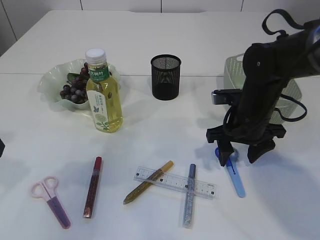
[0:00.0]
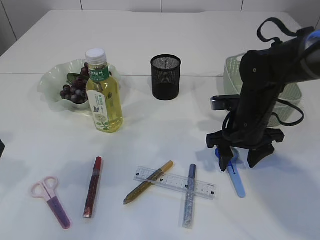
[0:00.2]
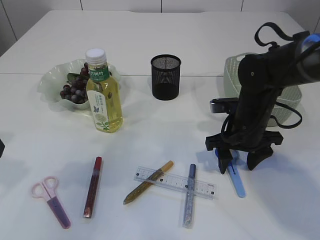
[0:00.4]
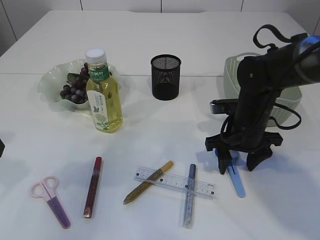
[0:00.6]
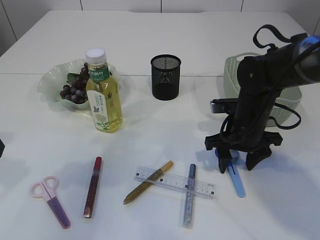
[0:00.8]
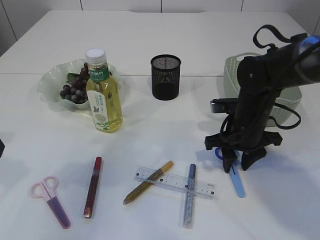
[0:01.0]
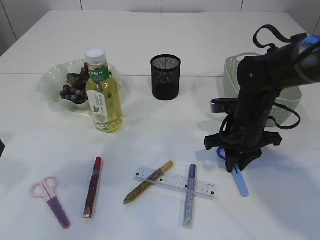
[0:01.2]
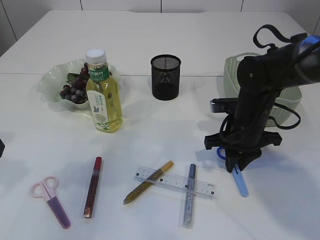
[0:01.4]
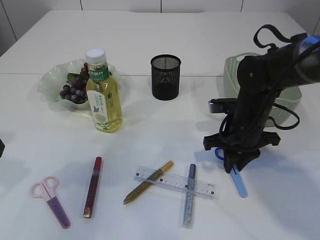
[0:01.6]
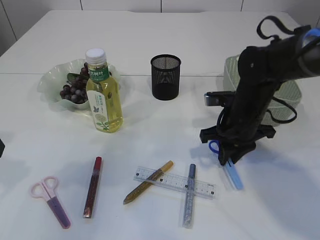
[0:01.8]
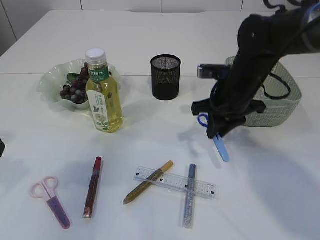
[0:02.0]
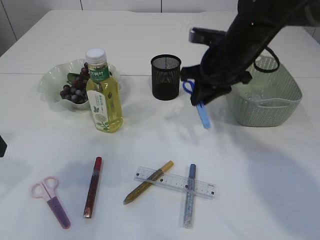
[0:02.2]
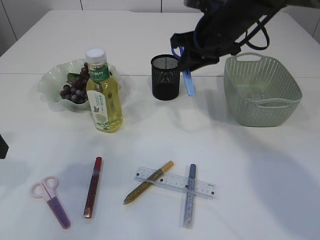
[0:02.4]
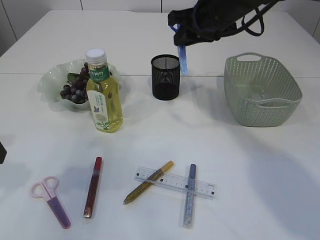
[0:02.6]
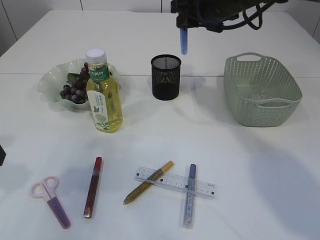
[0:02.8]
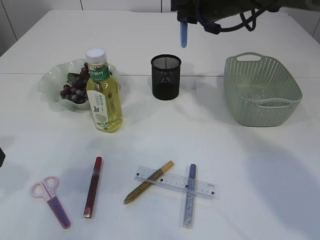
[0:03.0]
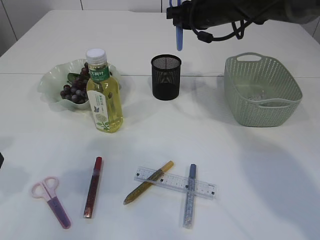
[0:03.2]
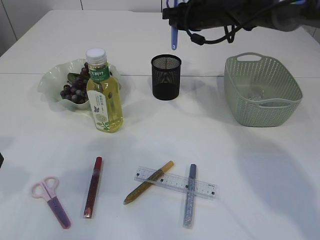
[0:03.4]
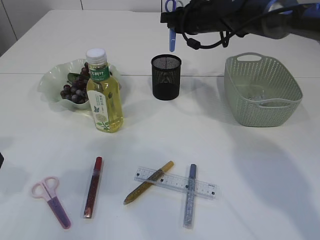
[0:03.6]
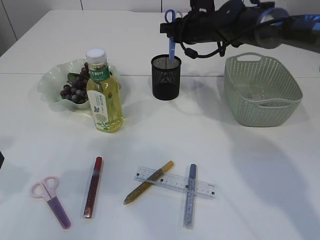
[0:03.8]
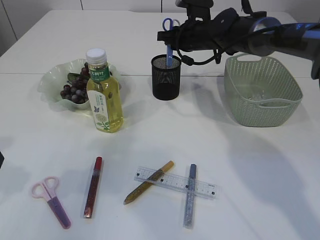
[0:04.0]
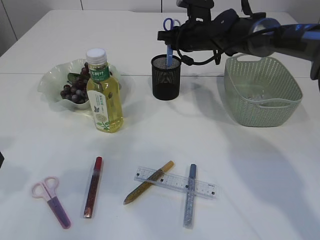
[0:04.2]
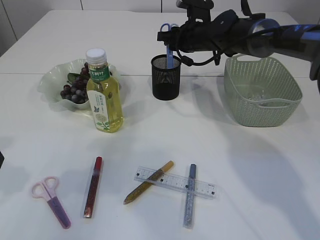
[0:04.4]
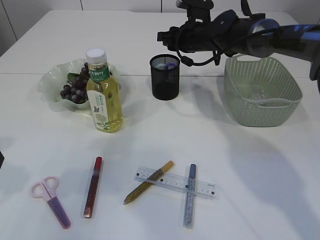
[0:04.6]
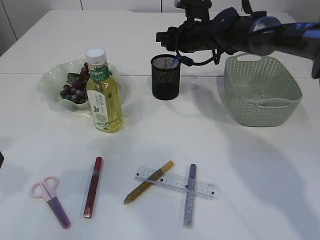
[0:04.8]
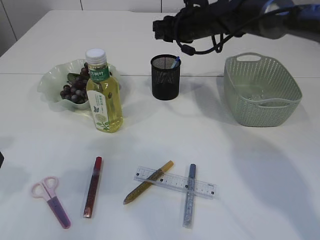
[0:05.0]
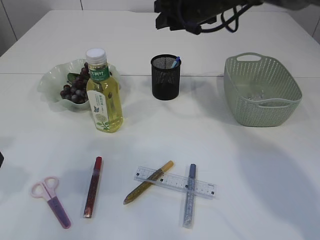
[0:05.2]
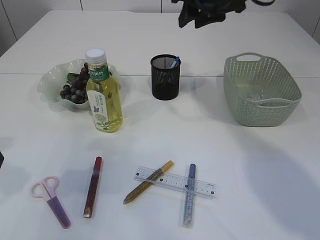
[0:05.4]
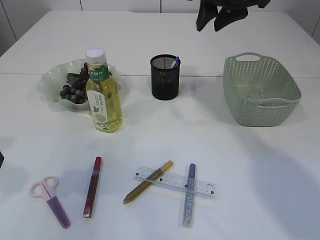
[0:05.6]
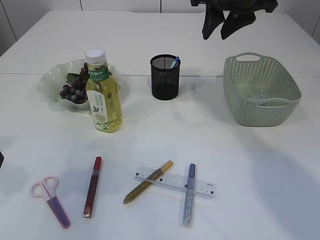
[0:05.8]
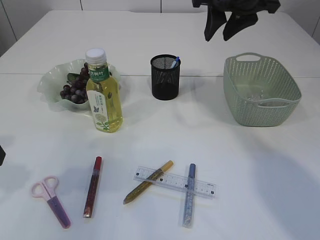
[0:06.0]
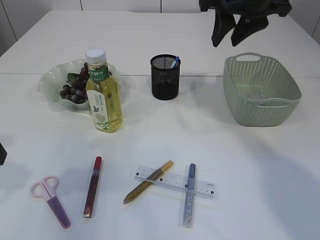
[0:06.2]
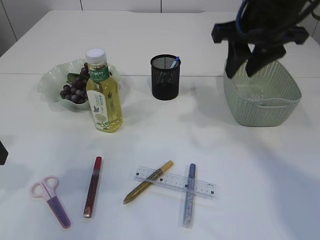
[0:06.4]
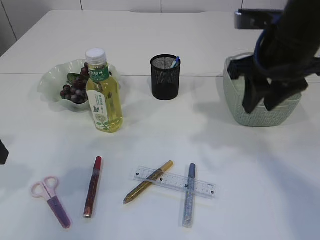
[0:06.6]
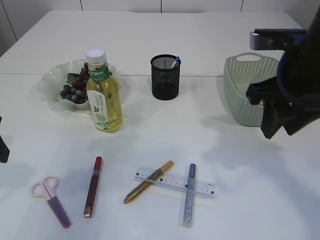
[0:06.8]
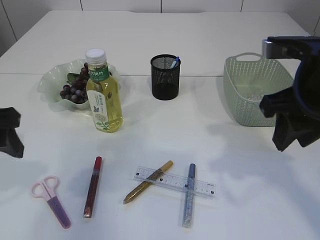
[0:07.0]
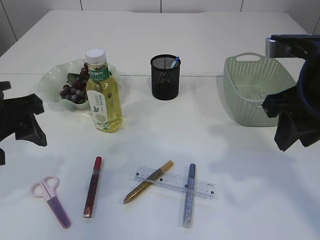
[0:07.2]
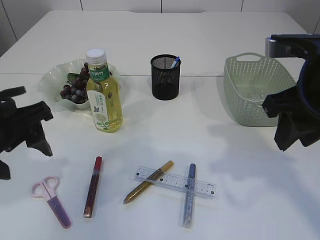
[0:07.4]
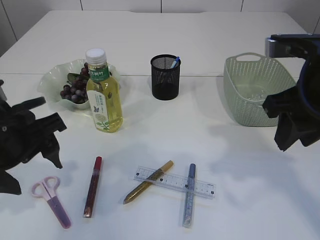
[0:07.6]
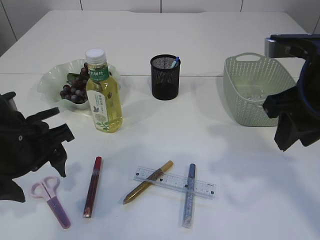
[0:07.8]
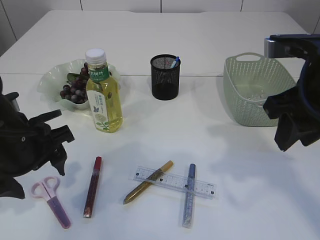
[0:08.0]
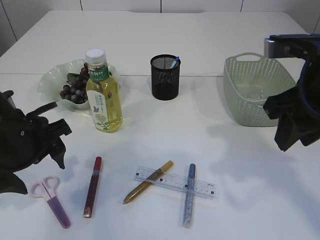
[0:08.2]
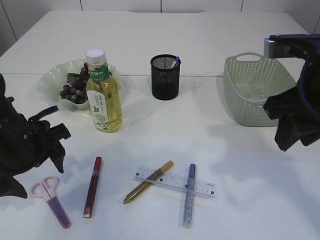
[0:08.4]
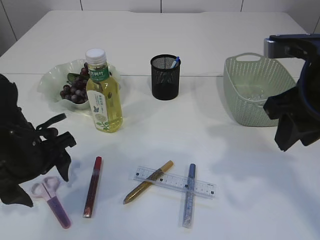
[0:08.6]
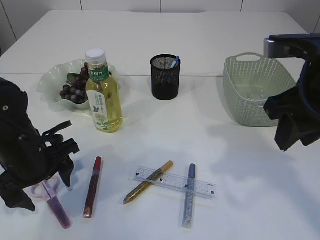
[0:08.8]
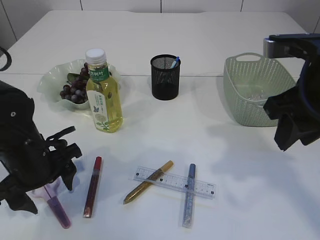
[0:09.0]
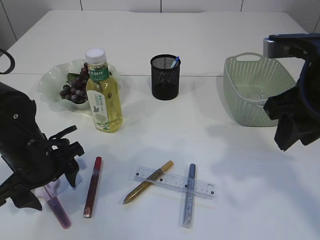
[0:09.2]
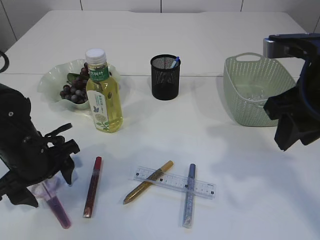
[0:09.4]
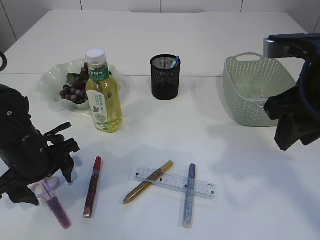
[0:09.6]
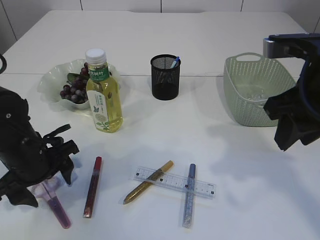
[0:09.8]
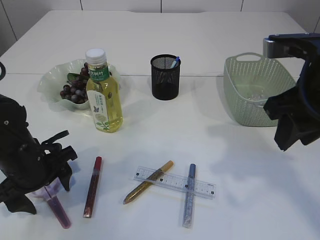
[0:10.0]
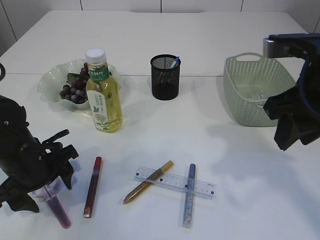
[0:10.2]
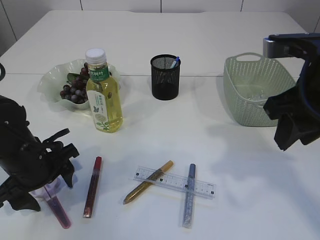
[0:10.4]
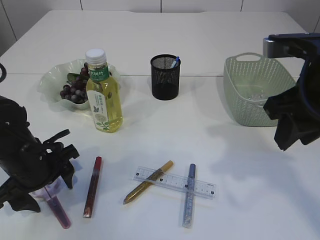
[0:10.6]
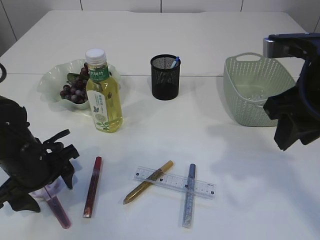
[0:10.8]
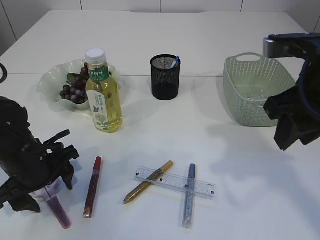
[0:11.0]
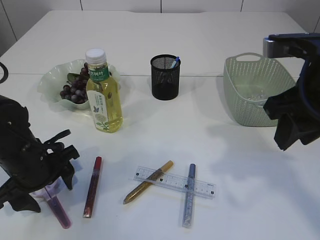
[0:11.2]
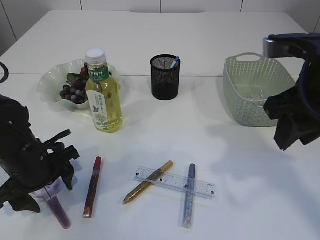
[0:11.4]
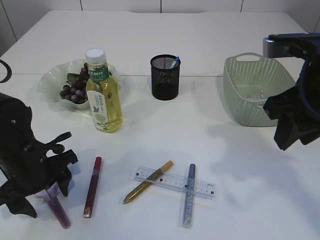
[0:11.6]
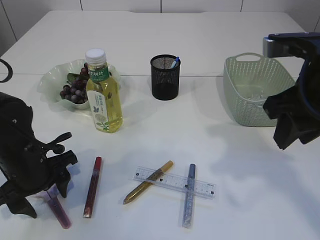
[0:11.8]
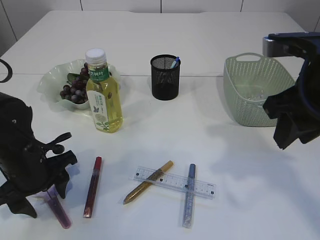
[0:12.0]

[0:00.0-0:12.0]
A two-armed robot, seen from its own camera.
Step, 0:00.0 to 0:02.0: pick up the blue scissors.
Step, 0:02.2 to 0:05.4: Place the blue scissors into the pen holder.
0:00.0 to 0:01.6: The right gripper closes its fingers.
0:01.6 to 0:03.0: The right gripper shifts roughly 20 cm upward and forward.
0:03.0 to 0:04.4: The right gripper shifts about 10 cm downward and forward.
0:04.4 to 0:06.0: The right gripper travels upward and backward by roughly 20 cm.
0:06.0 to 0:07.6: The left gripper goes about 10 cm to the right; the right gripper is displaced backward by some 15 cm.
0:07.6 to 0:09.0: The left gripper shifts about 10 cm downward.
0:09.0 to 0:12.0: The grippers move only a little.

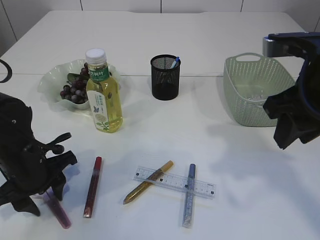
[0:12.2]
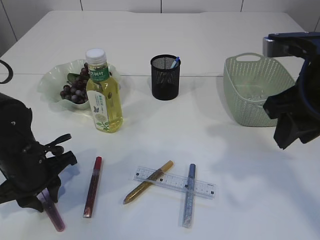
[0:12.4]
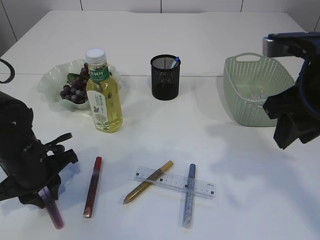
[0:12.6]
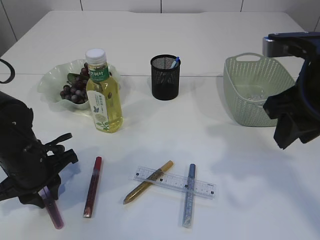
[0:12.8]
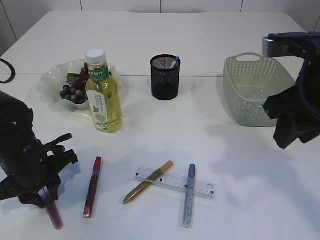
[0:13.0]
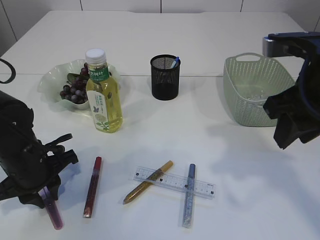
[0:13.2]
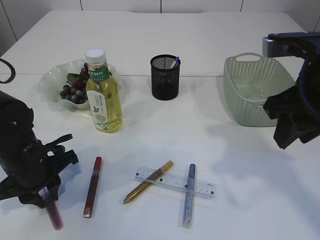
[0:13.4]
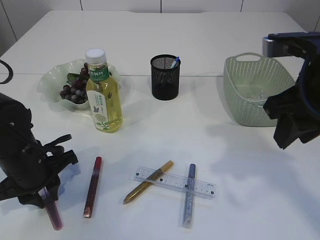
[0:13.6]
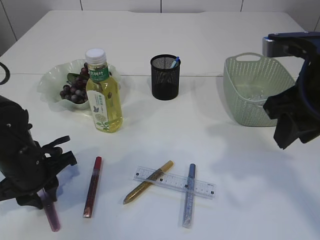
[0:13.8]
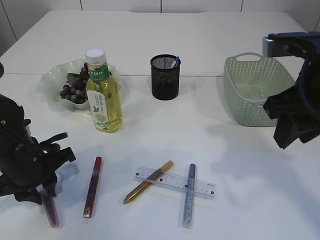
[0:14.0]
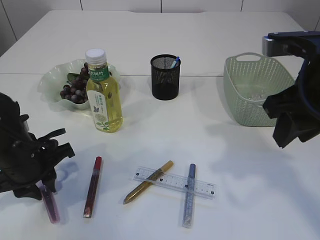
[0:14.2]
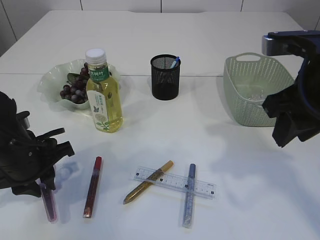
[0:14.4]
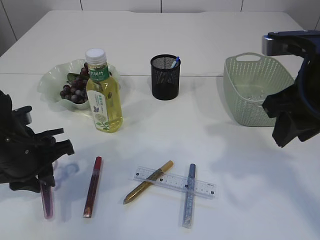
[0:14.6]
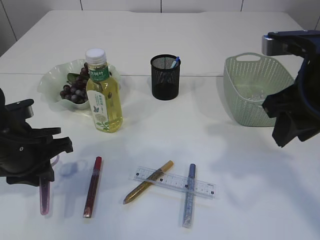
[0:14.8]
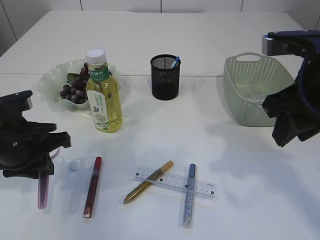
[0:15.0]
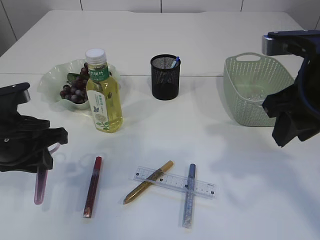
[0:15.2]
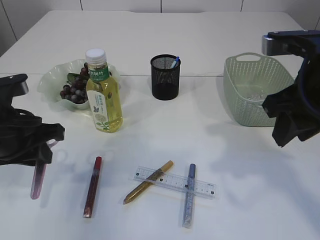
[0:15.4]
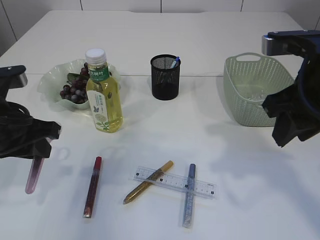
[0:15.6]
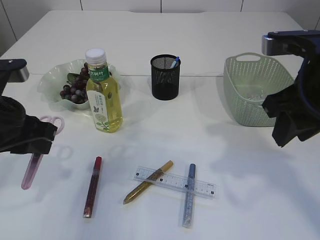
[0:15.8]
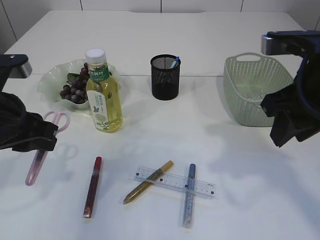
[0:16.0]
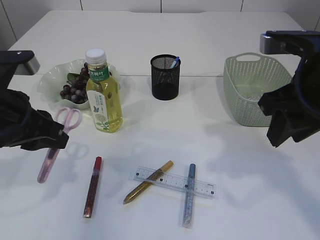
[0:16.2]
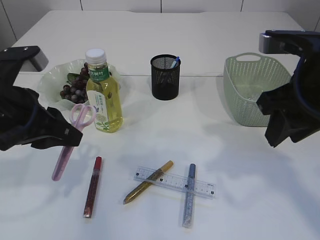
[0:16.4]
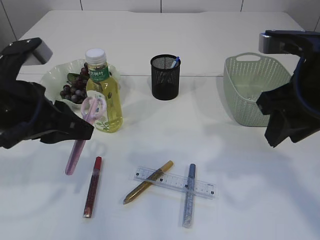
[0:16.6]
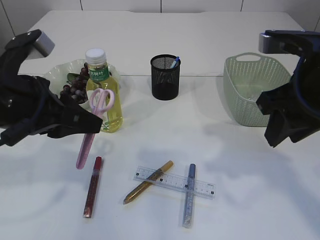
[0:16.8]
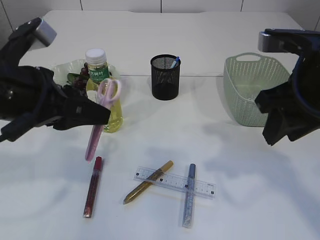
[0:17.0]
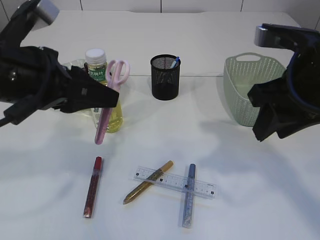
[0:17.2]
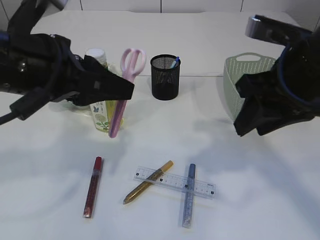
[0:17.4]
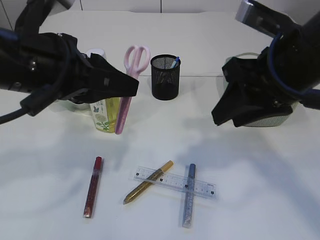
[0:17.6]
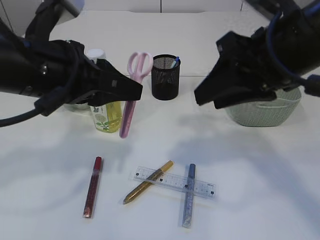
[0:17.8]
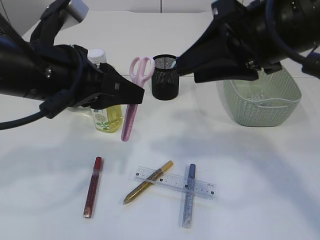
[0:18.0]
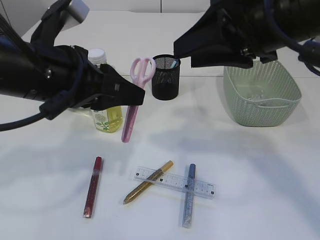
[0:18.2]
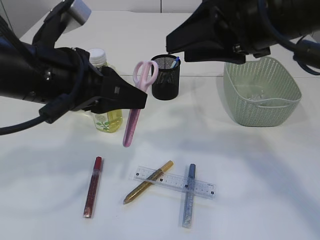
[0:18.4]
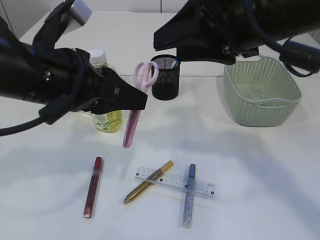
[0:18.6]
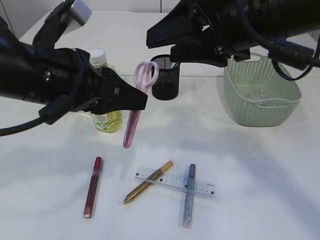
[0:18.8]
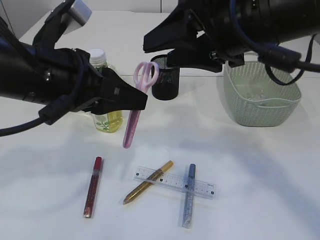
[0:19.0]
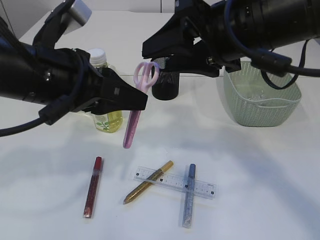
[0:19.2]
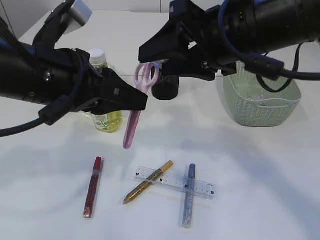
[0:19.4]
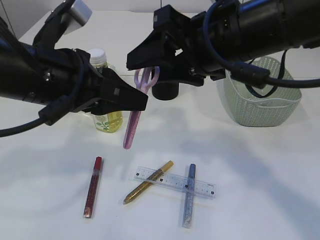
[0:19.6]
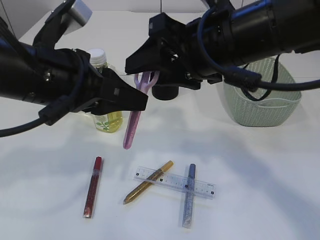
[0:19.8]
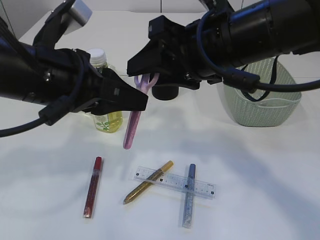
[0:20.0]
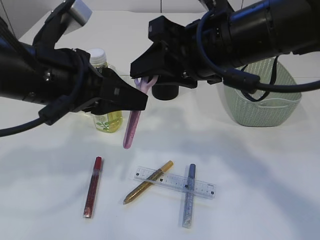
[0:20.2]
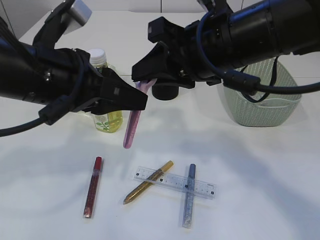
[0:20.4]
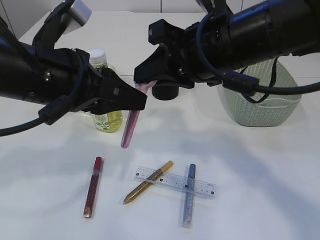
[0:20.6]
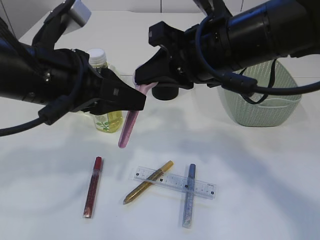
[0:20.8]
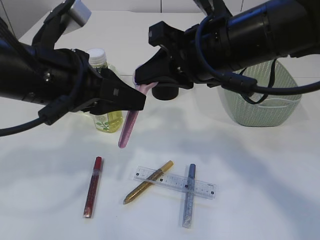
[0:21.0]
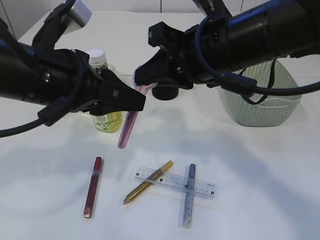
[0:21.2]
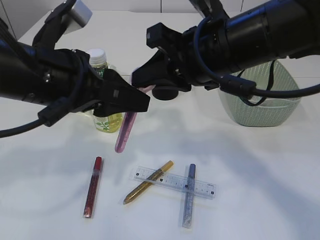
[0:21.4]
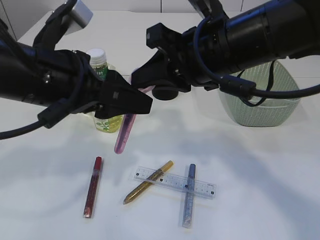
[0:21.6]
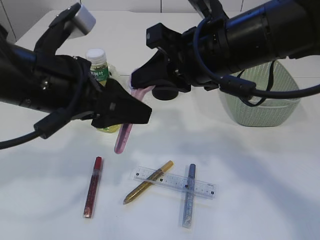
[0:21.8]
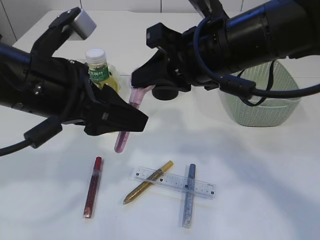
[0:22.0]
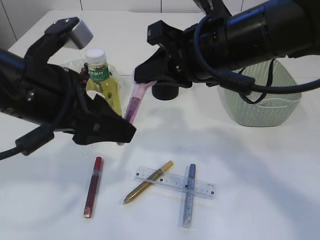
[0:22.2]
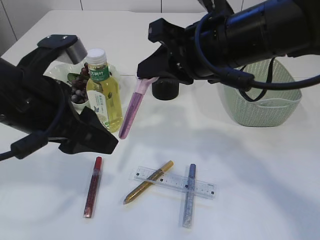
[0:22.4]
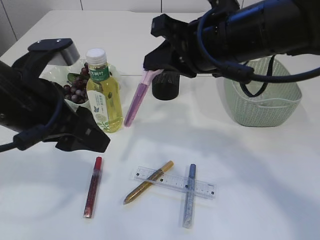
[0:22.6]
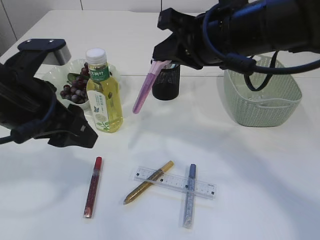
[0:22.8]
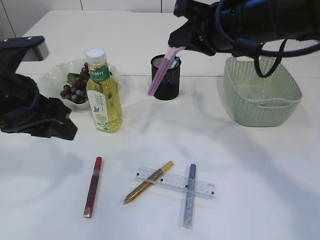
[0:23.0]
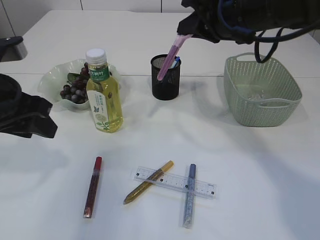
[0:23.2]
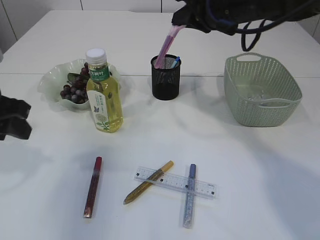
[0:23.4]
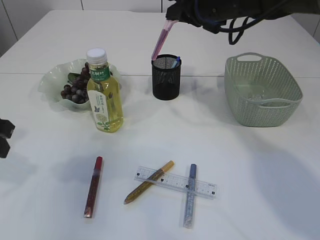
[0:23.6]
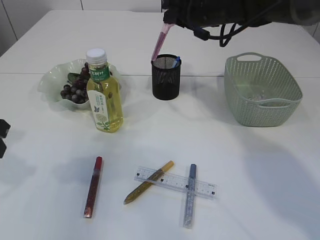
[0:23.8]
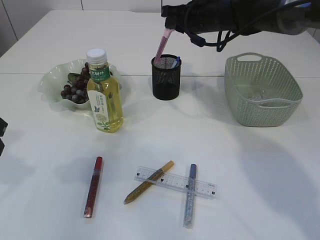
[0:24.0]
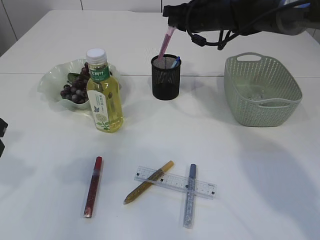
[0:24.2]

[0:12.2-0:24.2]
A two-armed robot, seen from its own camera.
Step, 0:12.2 to 0:15.2: pick up the pink scissors.
Step, 0:15.4 to 0:23.0: Hand over the pink scissors.
0:12.2 to 0:13.8: The left gripper closes.
0:13.8 to 0:15.2: The left gripper travels upward by about 5 cm.
0:15.2 to 0:16.6: The left gripper goes roughly 5 cm upward.
0:16.6 to 0:18.2: The right gripper is displaced upward and to the left by some 10 cm; the left gripper moves to the right, roughly 5 cm.
0:18.2 to 0:19.8: The right gripper moves to the left, some 5 cm.
0:19.8 to 0:21.2: The right gripper closes its fingers.
0:21.2 to 0:22.6: The left gripper opens its fingers.
0:22.6 to 0:24.2: The right gripper goes some 20 cm forward. Meanwhile the left gripper heads to the left, covering some 10 cm.
